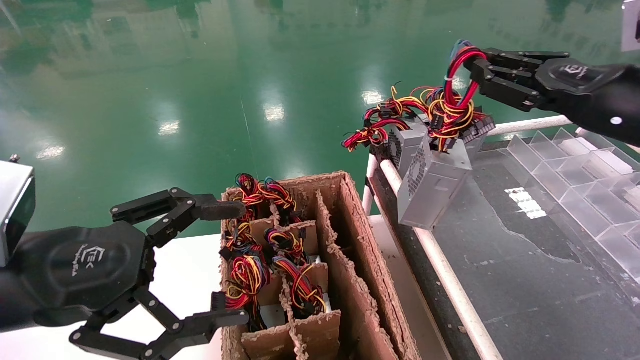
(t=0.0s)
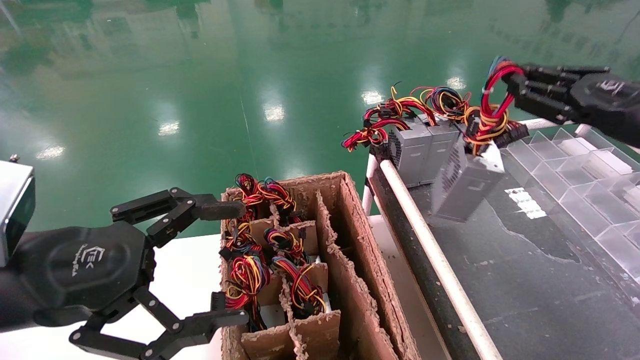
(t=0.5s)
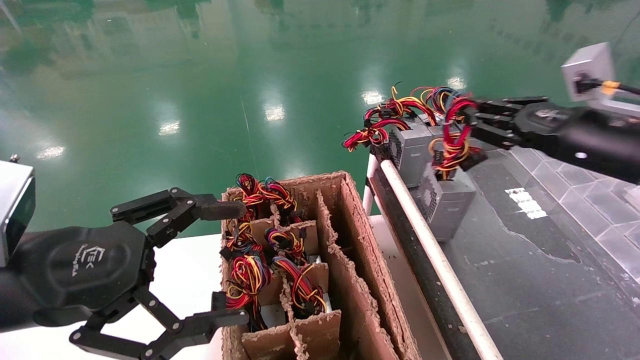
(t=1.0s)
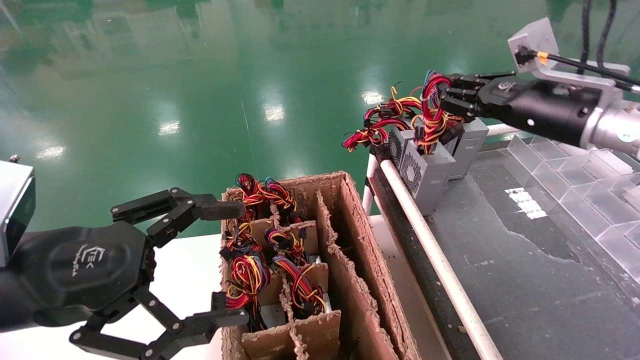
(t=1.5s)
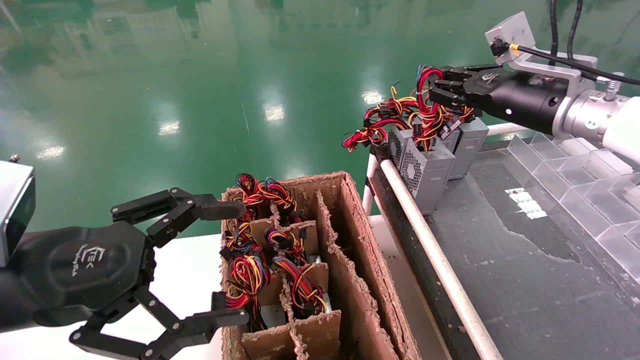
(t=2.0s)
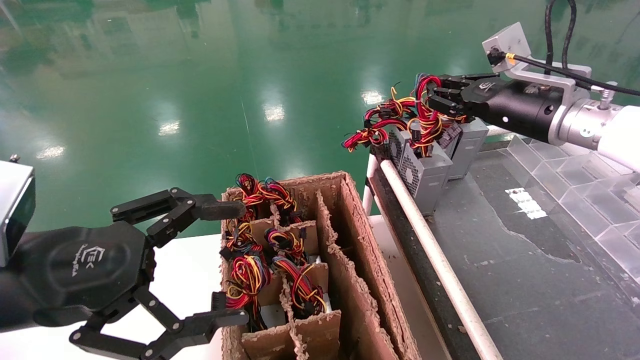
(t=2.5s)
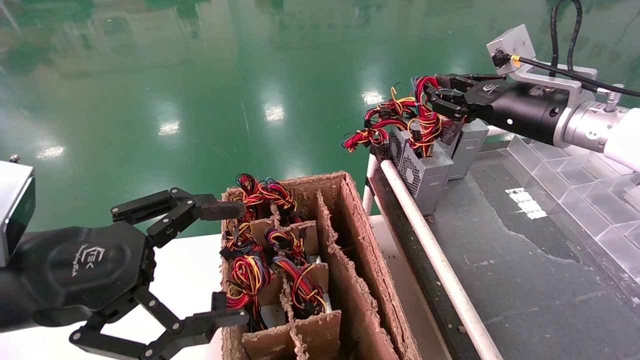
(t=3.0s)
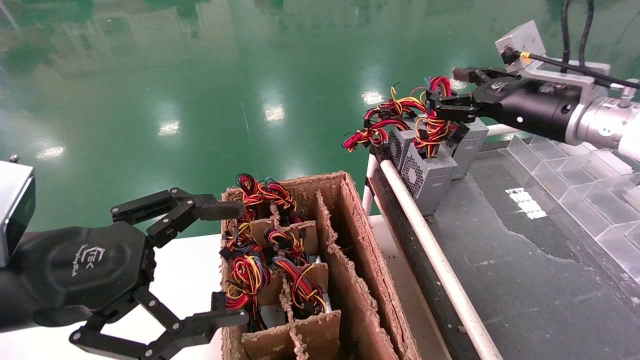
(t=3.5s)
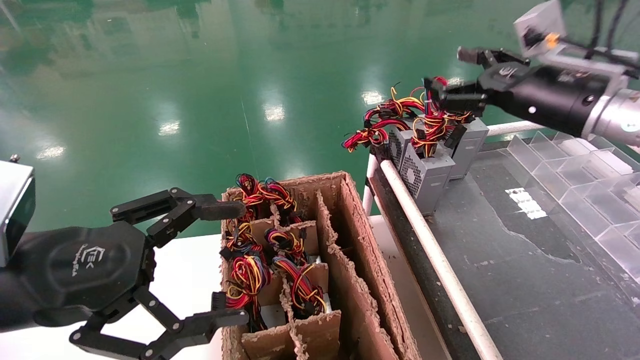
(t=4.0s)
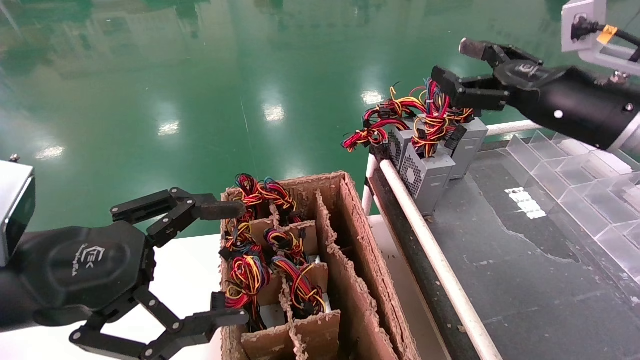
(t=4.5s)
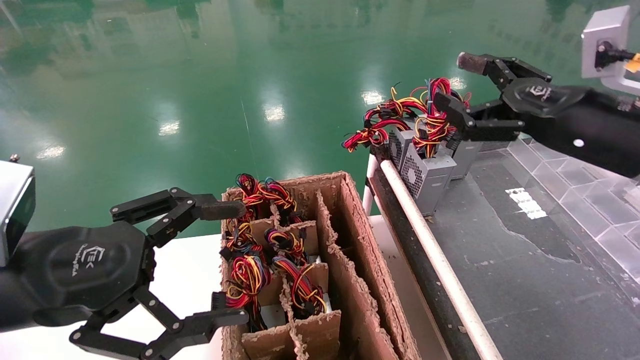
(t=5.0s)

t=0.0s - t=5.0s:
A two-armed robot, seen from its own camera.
Step, t=0.0s - t=2.5s: Place the power supply on the operating table.
t=0.0s - t=2.5s: The right gripper is displaced forward and to the left by some 10 cm.
t=2.5s - t=5.0s: The right gripper shifts some 10 cm backward, and opens.
